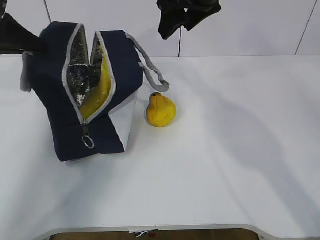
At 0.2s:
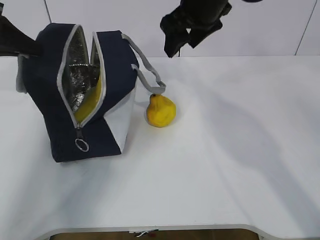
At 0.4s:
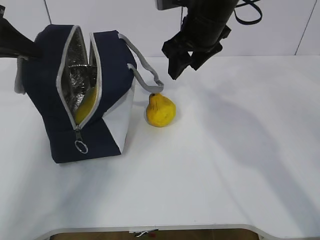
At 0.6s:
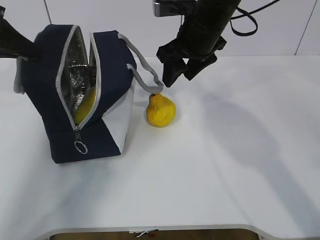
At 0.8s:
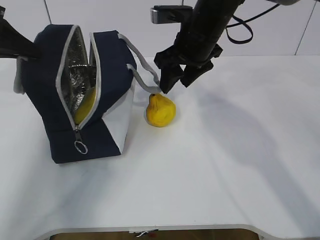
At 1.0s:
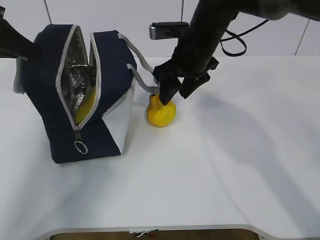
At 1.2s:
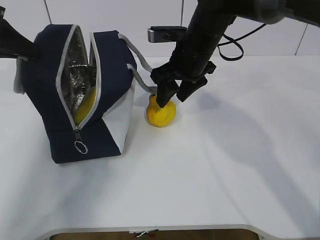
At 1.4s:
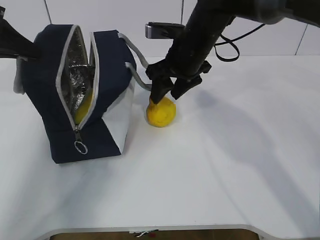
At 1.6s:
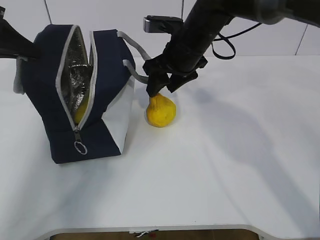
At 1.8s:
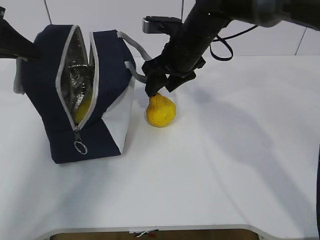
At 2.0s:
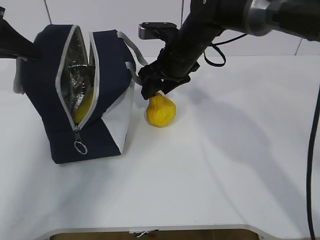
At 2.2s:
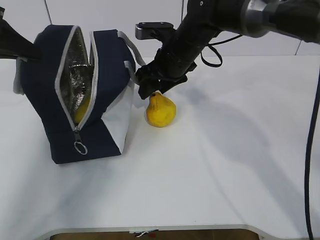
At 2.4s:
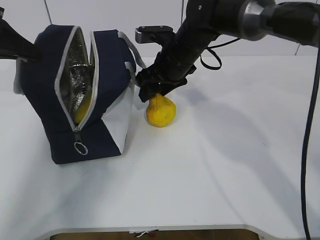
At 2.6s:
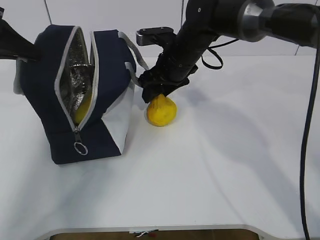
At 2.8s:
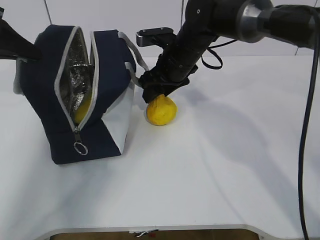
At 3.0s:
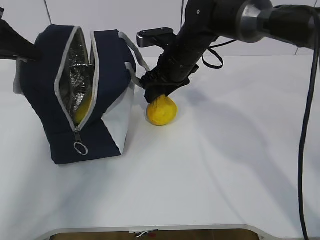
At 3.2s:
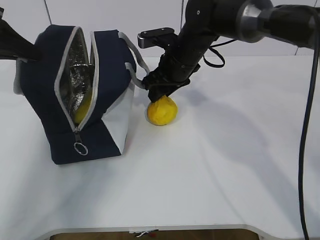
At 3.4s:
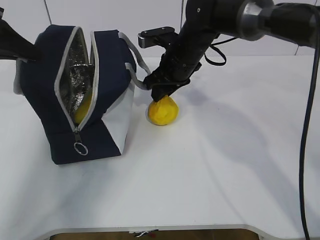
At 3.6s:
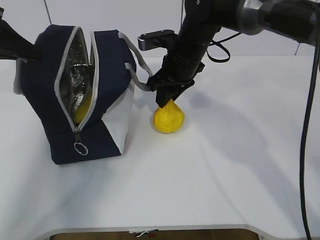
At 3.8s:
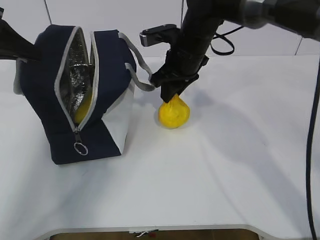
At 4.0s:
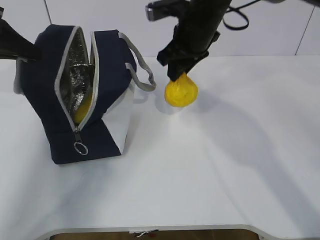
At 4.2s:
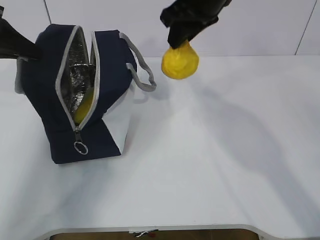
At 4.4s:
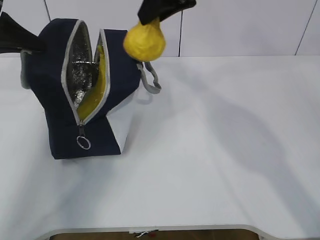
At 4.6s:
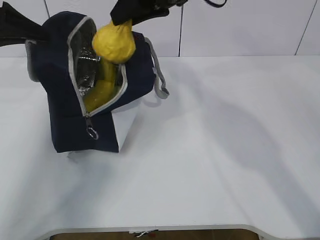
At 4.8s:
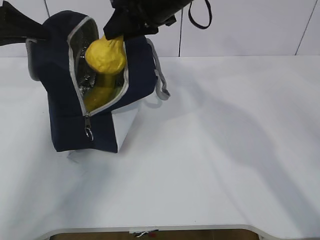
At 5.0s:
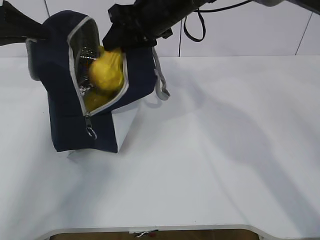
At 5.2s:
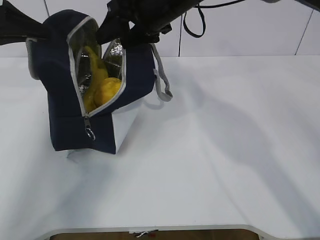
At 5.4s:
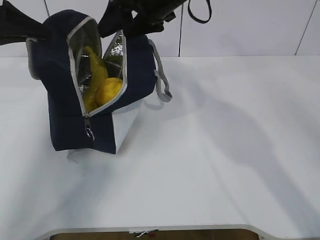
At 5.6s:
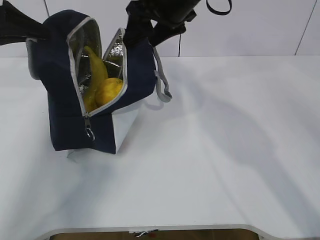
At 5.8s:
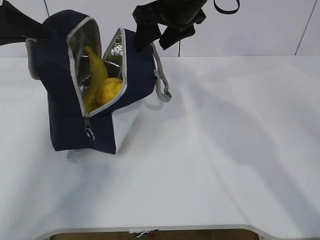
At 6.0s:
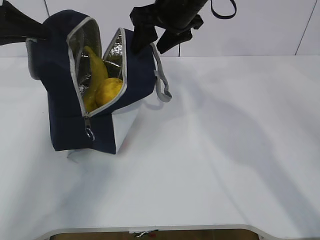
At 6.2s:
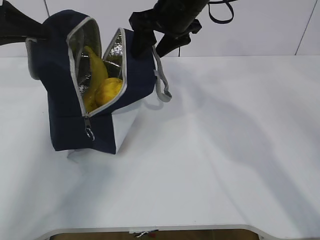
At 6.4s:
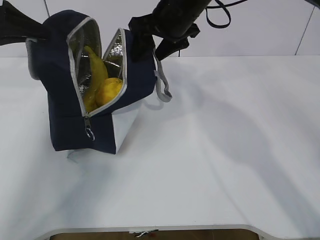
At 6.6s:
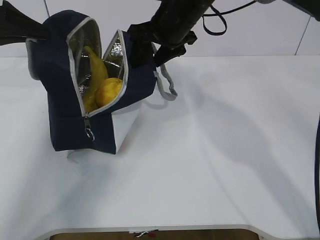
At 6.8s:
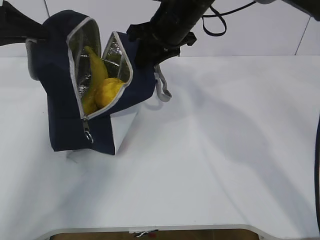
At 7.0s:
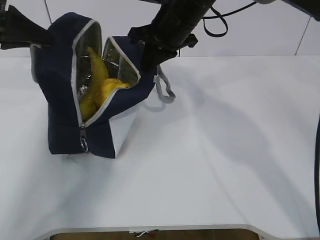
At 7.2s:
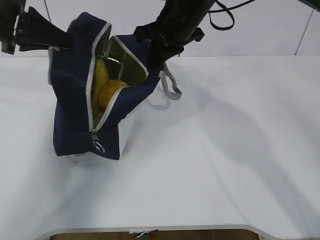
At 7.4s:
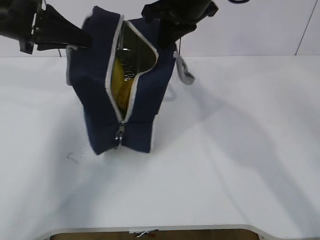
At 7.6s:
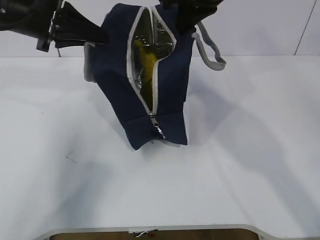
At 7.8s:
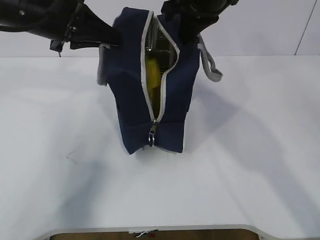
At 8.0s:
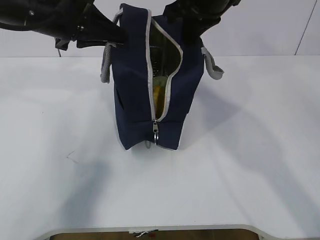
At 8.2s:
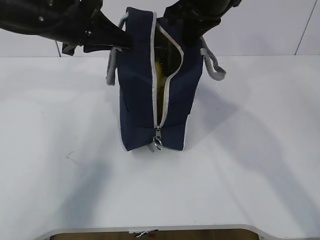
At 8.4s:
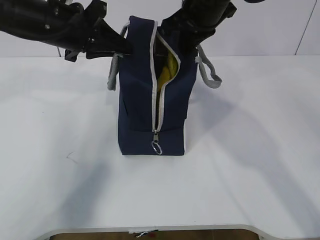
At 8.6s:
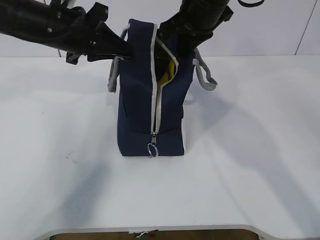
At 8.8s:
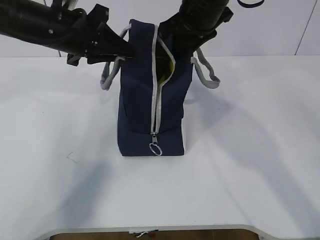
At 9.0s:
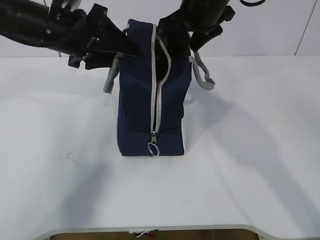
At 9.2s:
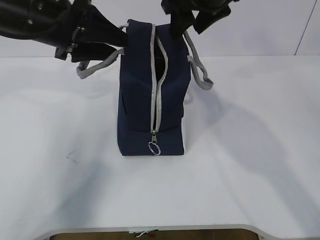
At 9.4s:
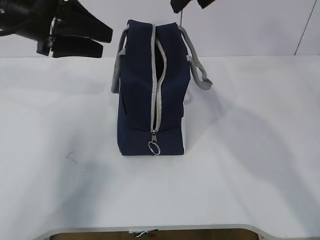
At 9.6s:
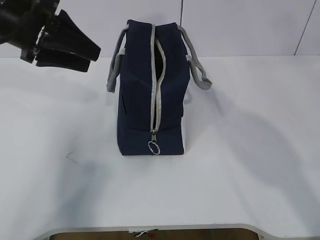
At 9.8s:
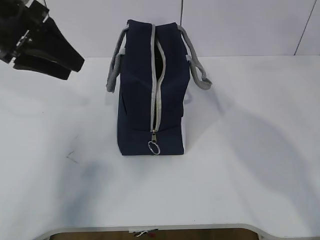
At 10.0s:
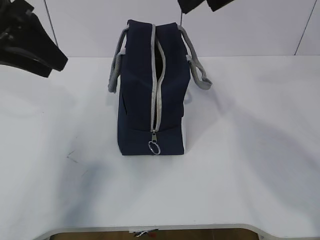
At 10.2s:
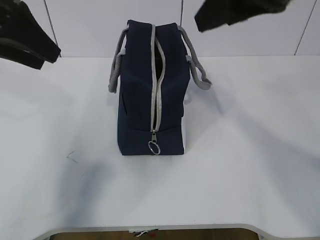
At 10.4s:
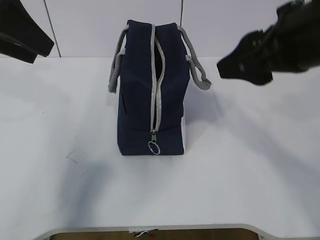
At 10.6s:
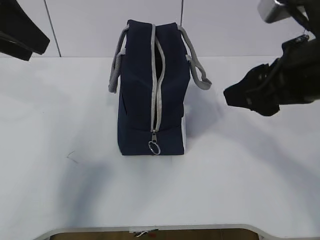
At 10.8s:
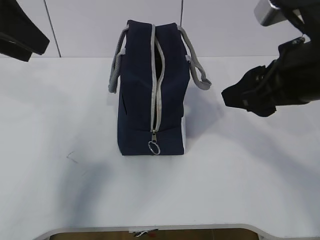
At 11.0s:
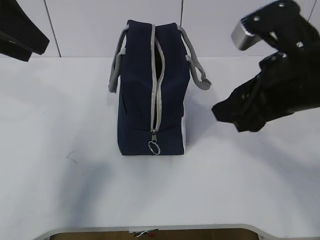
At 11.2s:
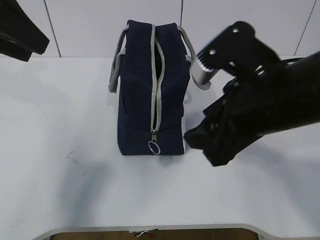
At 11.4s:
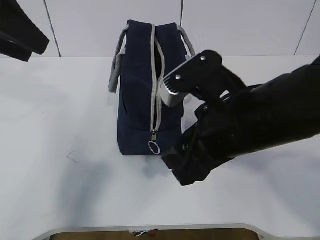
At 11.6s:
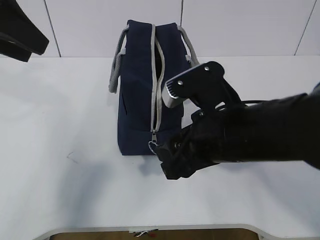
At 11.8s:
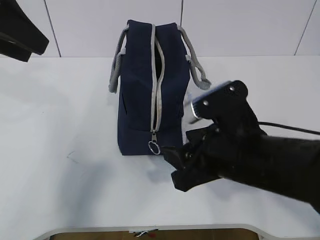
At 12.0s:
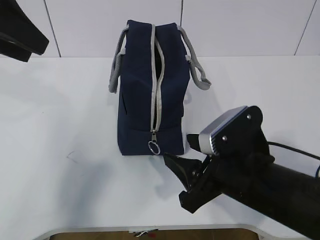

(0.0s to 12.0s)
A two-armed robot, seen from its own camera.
Step, 0.4s - 1.6s: Grab the lunch bag with your right hand.
Step, 1.8s - 3.4s: Move the lunch bag to the right.
0.0s - 1.6s: The right gripper goes about 10 cm downward.
1.6s - 3.0s: The grippers stay close to where they were, moving slightly.
3.0s - 4.4s: The right gripper travels upward by some 15 cm, and closes its fingers.
4.4s - 6.0s: The right gripper heads downward, covering some 5 cm, and opens.
6.0s - 7.6s: The right gripper moves some 5 cm, and closes its fingers, while the left gripper travels to the right by about 10 cm.
7.6s - 9.0s: The right gripper opens its fingers; the left gripper changes place by approximately 5 cm, and opens up.
9.0s - 10.4s: The left gripper heads upward, backward and to the left, covering roughly 15 cm, while the right gripper travels backward by some 20 cm.
10.4s - 12.0s: The right gripper goes some 15 cm downward.

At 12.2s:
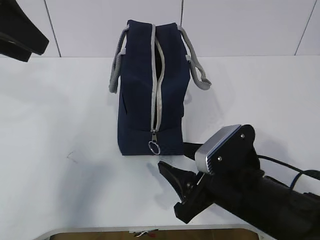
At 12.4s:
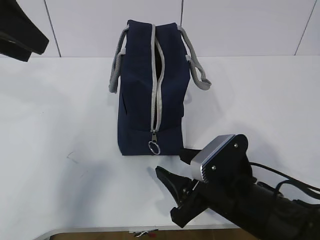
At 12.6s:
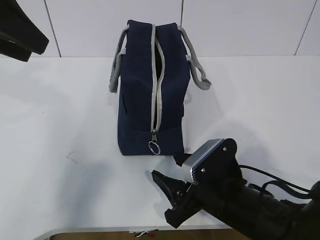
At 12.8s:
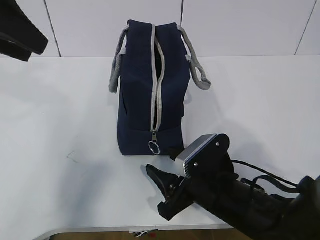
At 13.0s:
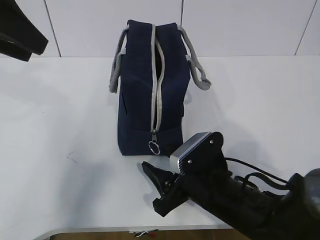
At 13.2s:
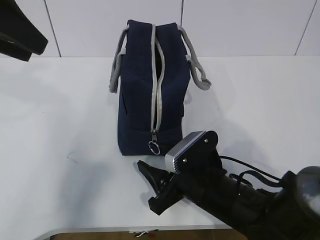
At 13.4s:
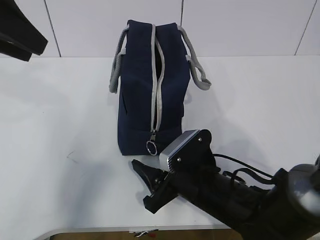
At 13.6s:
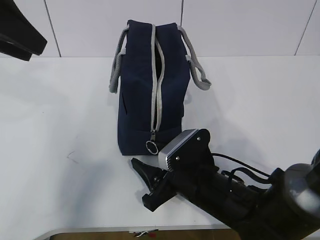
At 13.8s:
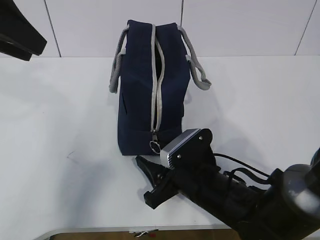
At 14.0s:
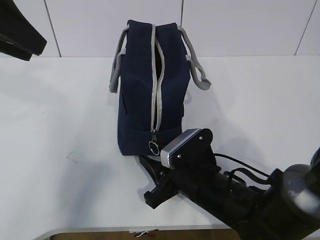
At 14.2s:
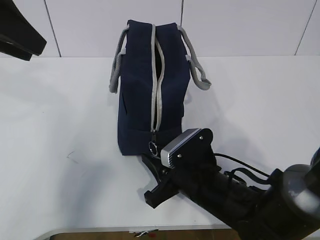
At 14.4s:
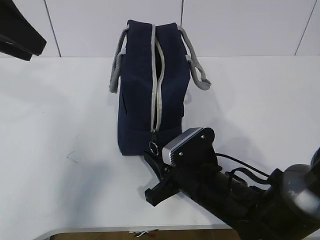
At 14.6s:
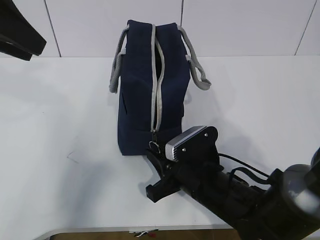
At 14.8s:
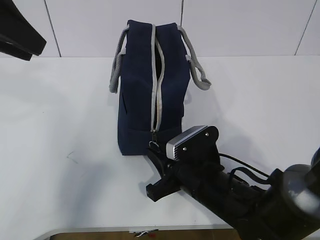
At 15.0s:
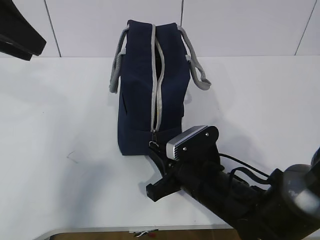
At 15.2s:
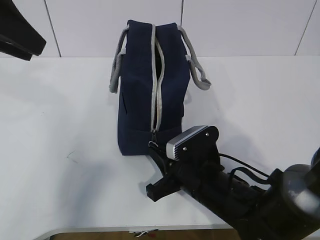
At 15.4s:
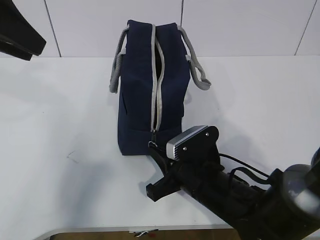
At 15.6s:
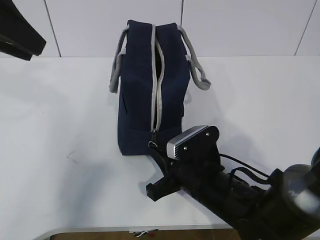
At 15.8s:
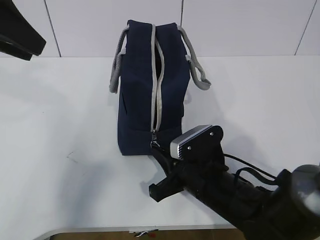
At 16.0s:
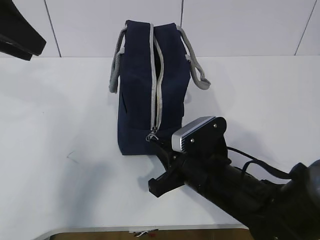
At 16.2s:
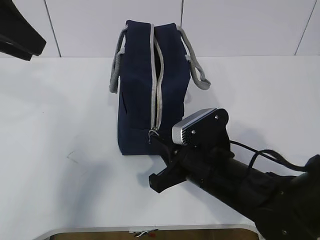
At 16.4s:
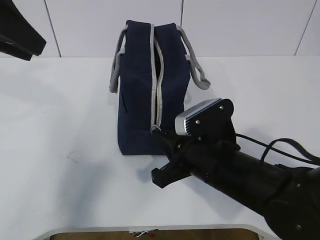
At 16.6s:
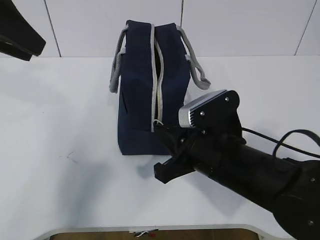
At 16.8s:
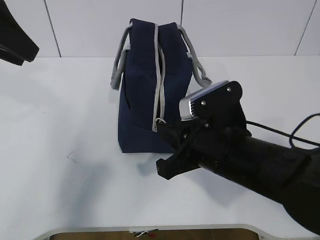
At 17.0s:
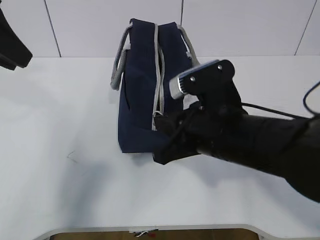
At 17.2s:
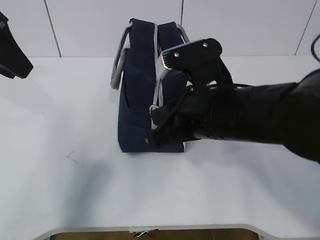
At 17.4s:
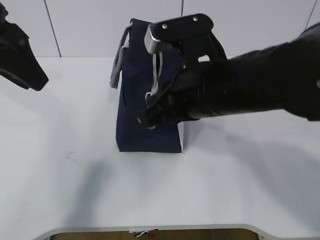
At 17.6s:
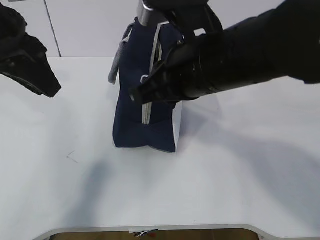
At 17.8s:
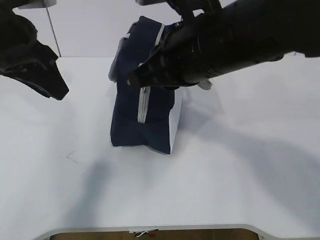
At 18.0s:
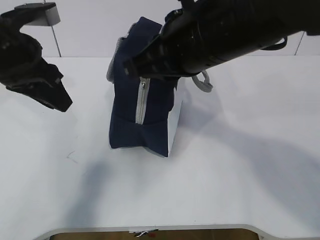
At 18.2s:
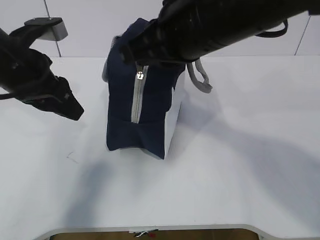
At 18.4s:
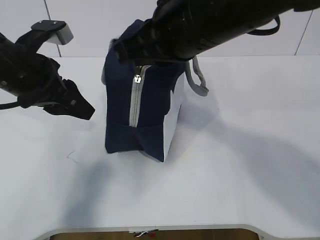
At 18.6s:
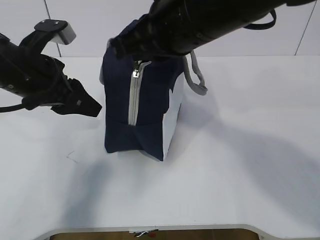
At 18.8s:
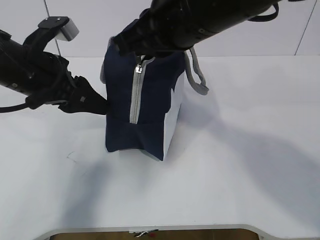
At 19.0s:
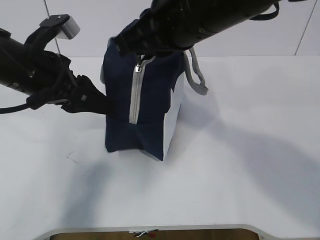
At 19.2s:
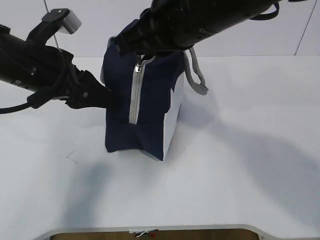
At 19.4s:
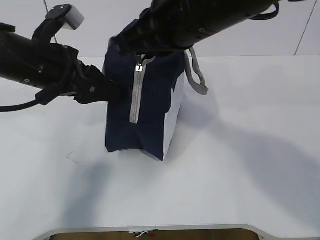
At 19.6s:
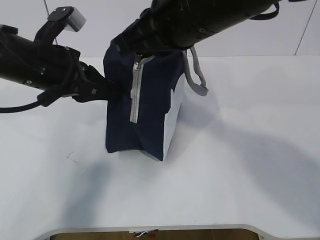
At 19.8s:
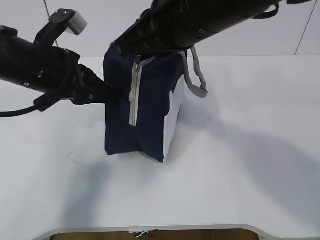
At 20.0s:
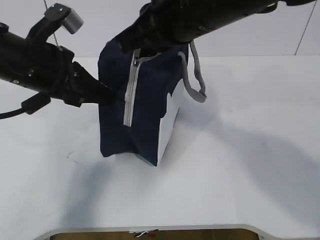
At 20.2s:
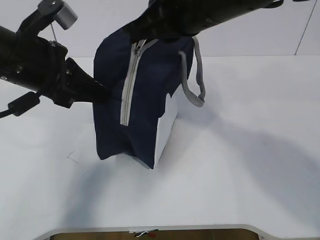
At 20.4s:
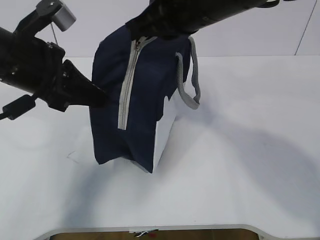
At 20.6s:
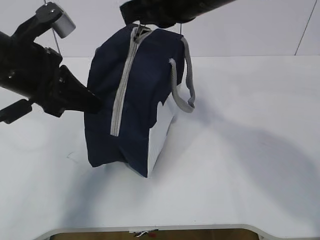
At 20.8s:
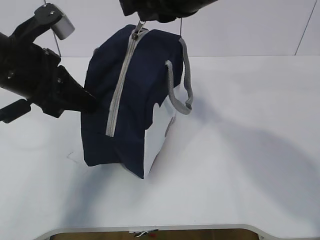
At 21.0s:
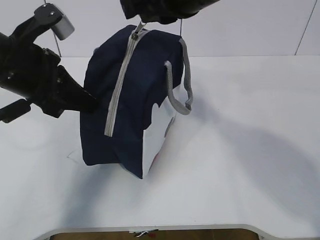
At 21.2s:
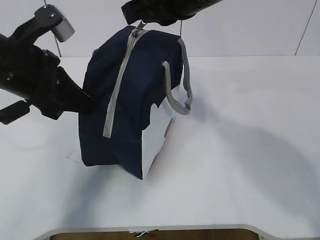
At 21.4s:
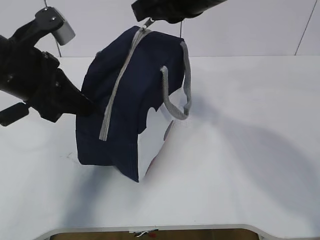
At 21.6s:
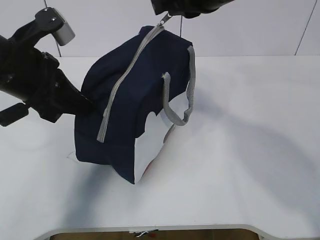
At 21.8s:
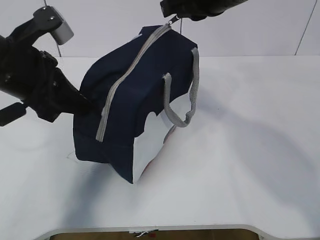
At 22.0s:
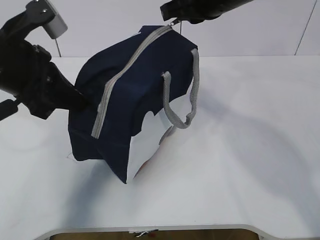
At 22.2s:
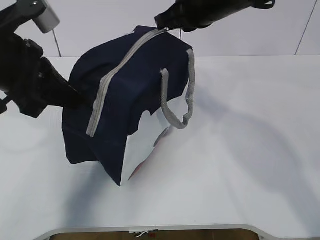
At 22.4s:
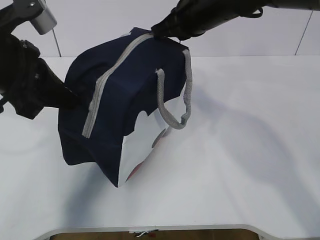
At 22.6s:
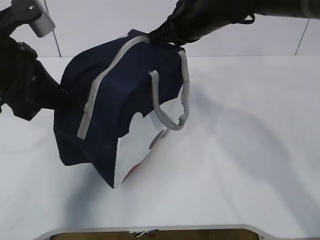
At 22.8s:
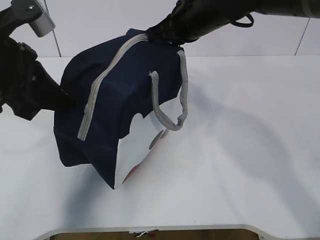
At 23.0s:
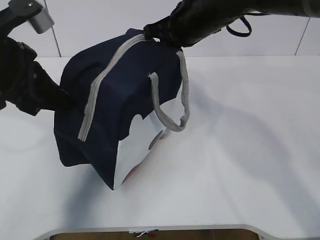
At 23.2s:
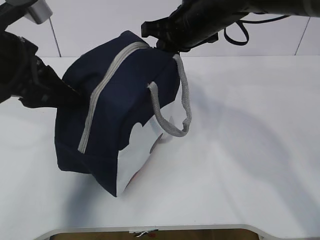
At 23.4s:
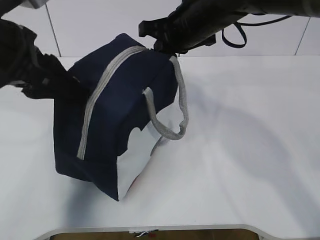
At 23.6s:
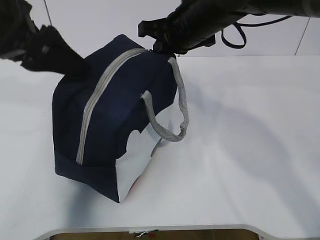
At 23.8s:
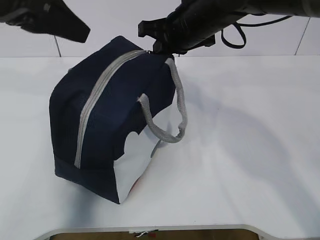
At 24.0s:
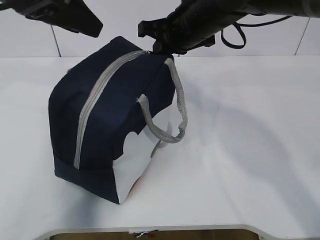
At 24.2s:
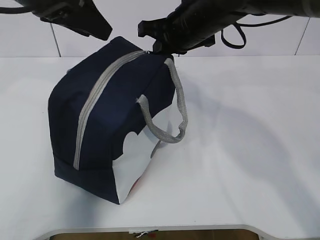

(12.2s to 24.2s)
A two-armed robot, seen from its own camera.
Step, 15.4s - 18.2s: Pull the zipper with your right hand.
Step, 18.4s - 19.4s: Grab the lunch bag with your left hand.
12.2s - 13.8s: The right gripper goes roughly 5 cm downward.
13.8s - 15.2s: The right gripper closes.
15.2s - 16.6s: The right gripper is displaced upward by about 10 cm.
16.6s - 18.2s: The left gripper shifts about 10 cm downward. Meanwhile the right gripper travels upward by some 20 cm.
18.2s - 19.8s: The left gripper closes its fingers.
21.2s - 22.6s: The right gripper moves forward and downward, approximately 15 cm.
22.6s - 24.2s: The left gripper travels forward and upward by approximately 10 cm, and opens.
